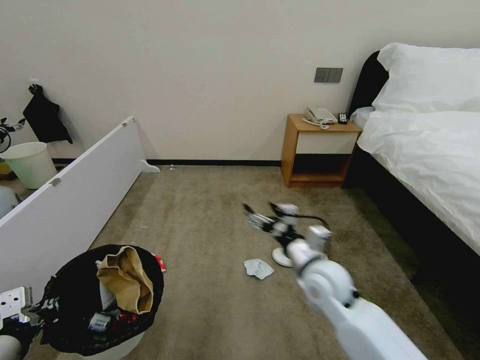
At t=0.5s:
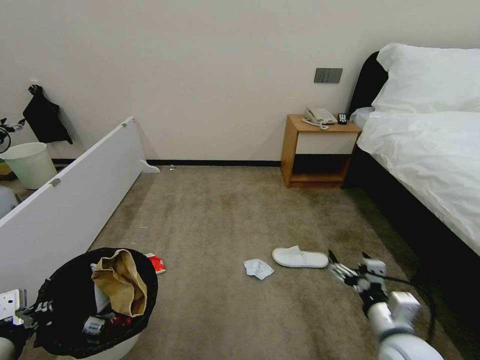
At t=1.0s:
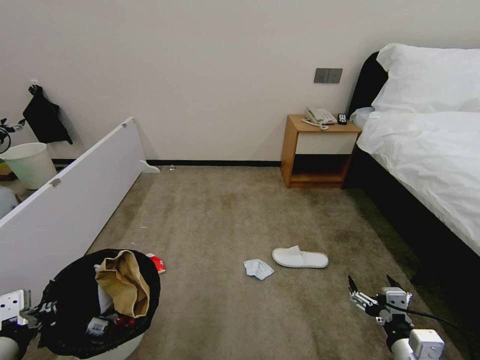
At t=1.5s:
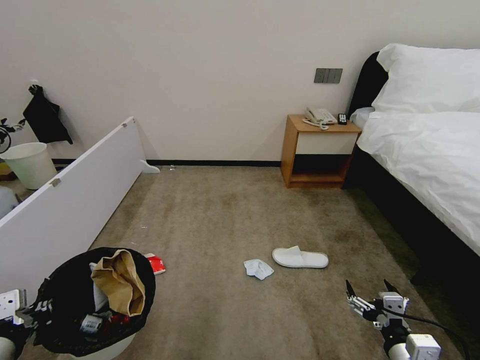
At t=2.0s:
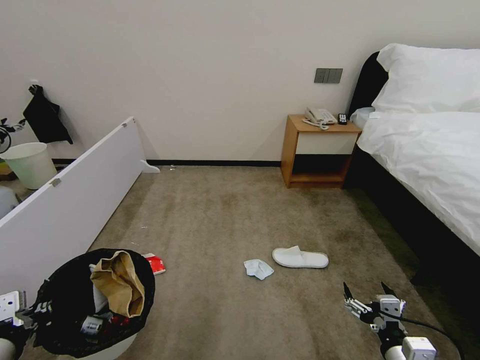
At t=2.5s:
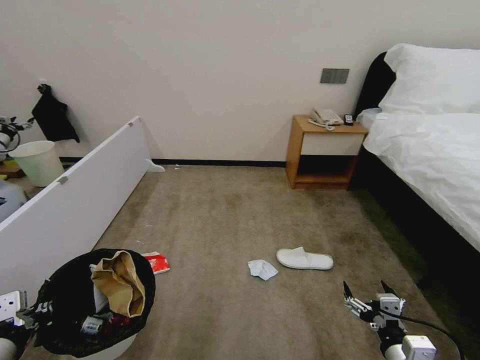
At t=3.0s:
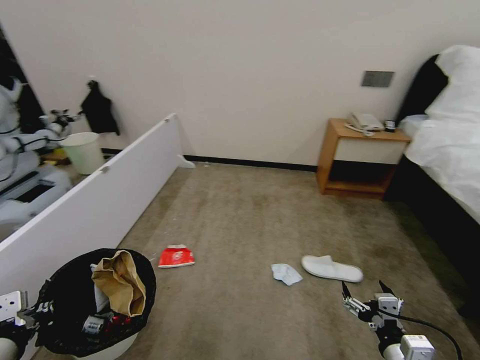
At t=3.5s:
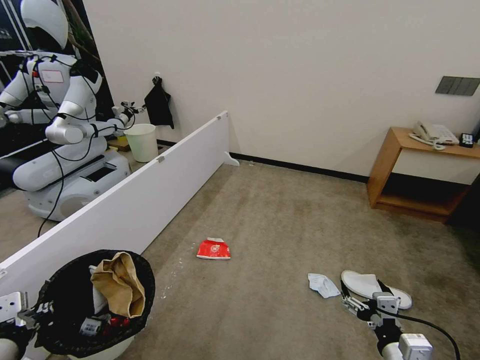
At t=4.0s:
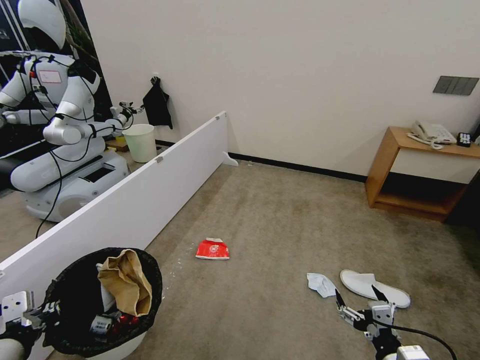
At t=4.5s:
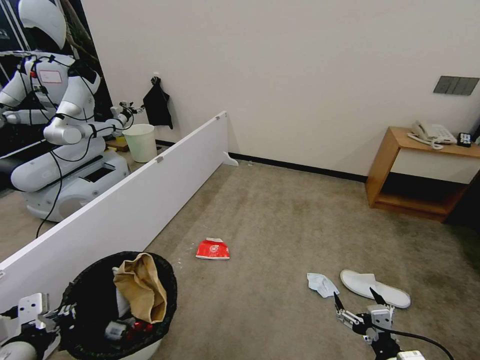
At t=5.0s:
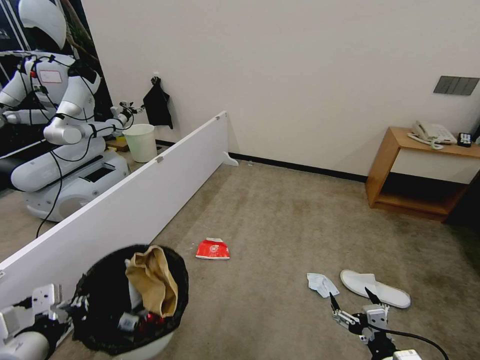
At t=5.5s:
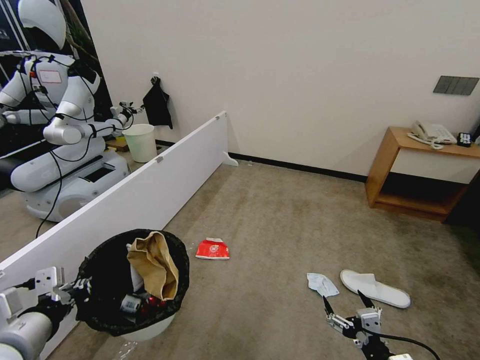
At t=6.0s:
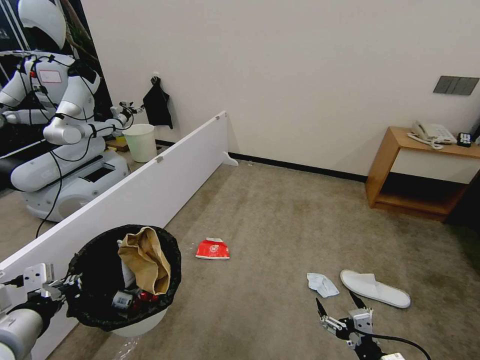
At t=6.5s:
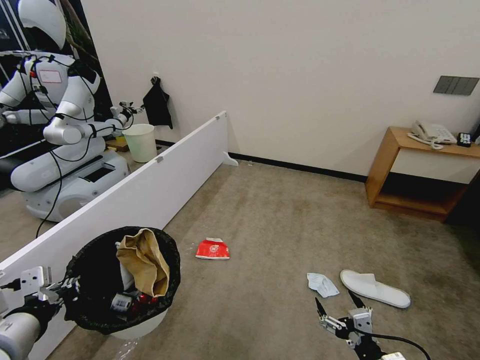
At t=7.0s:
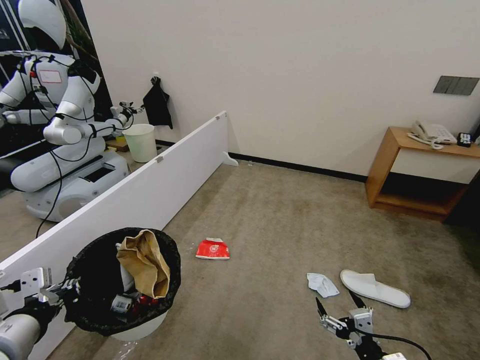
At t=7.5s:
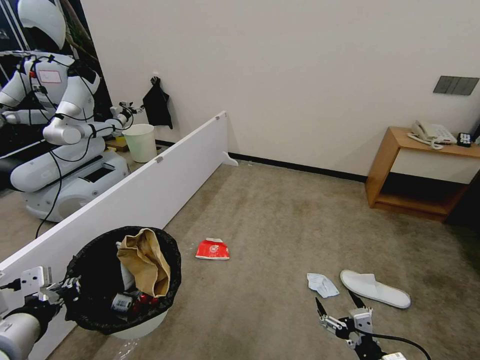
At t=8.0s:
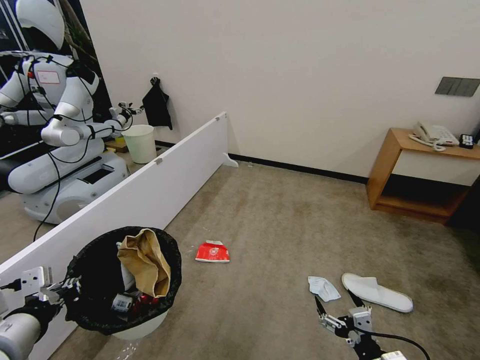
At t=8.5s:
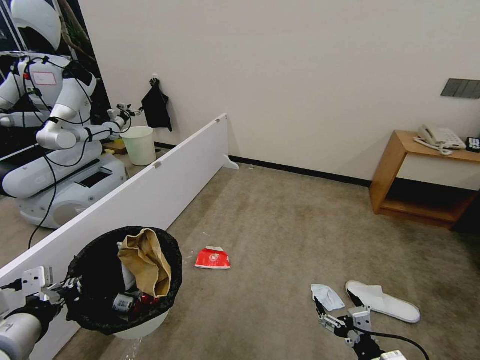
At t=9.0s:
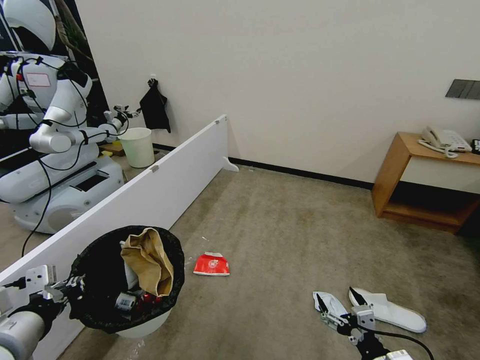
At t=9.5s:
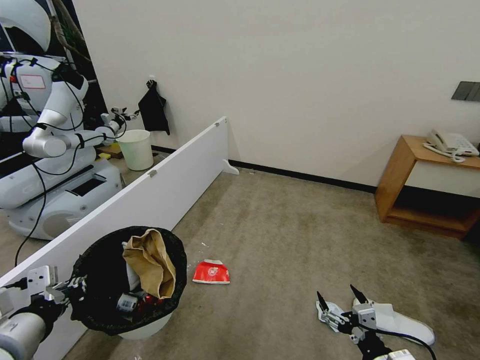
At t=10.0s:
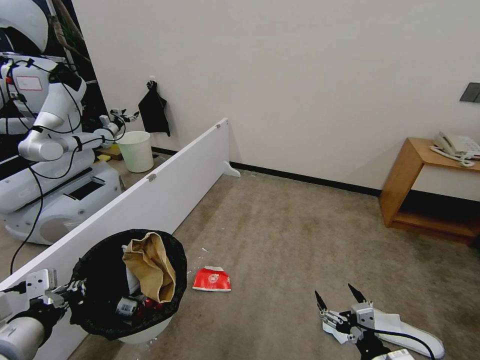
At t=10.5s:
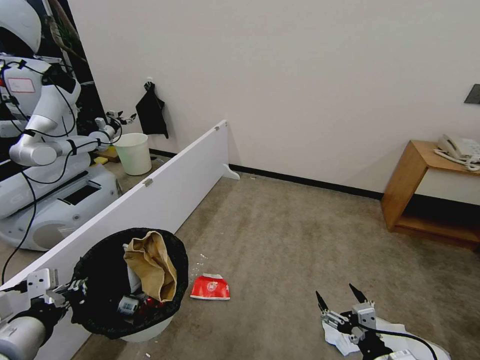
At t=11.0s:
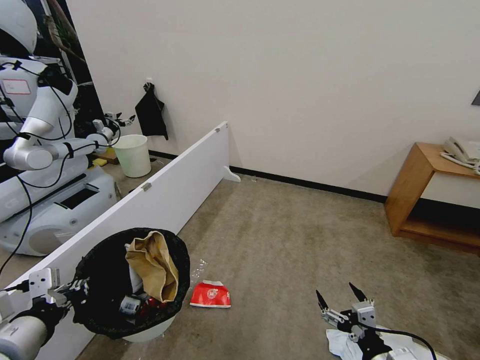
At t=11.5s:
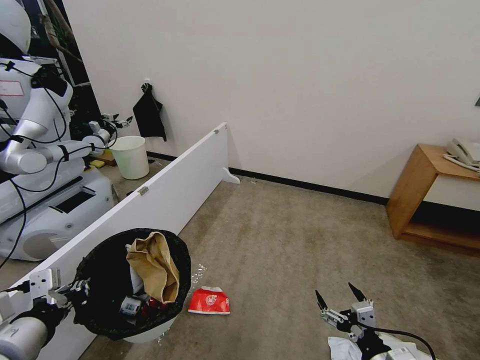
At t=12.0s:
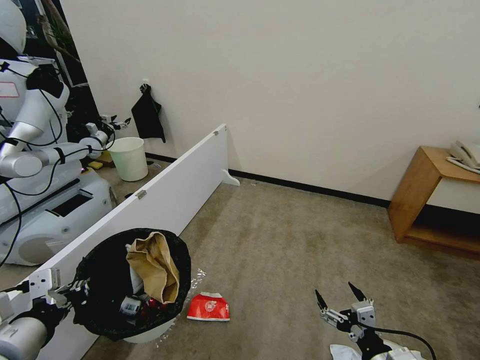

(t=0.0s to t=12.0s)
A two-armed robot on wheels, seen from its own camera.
Task of the whole recording: Pick up the trash bin, then pick up the garbage from the floor and place it into the trash bin.
t=0.0s - t=2.0s: The right gripper goes roughly 25 cm backward, to the right and downward.
t=4.0s - t=6.0s: There are only small adjustments of the grippers.
t=6.0s - t=8.0s: Neither gripper changes place.

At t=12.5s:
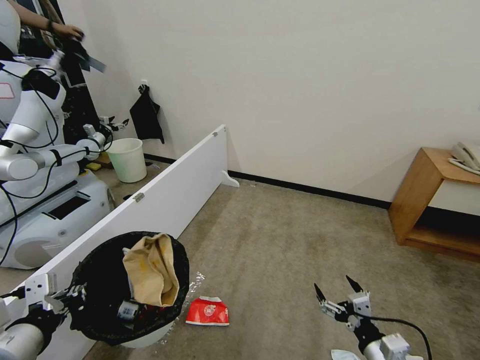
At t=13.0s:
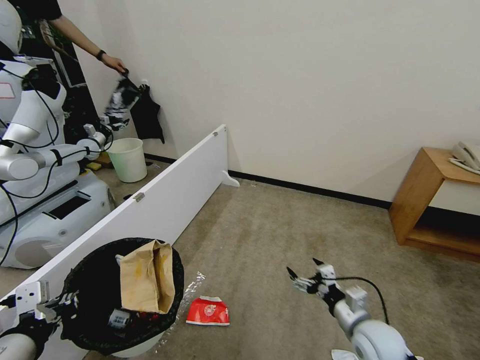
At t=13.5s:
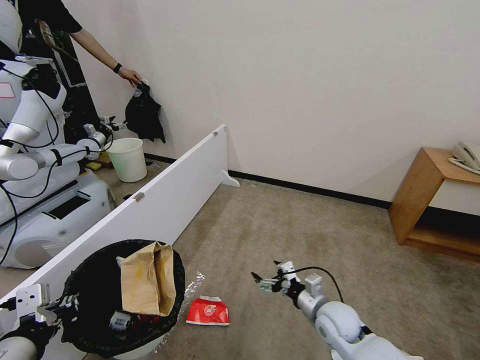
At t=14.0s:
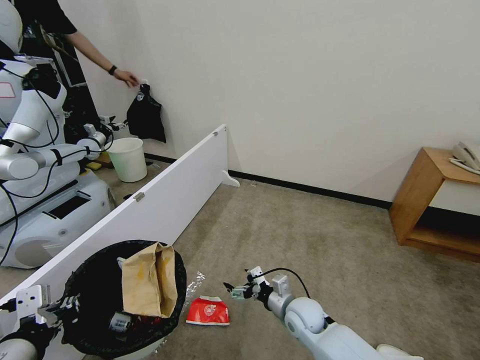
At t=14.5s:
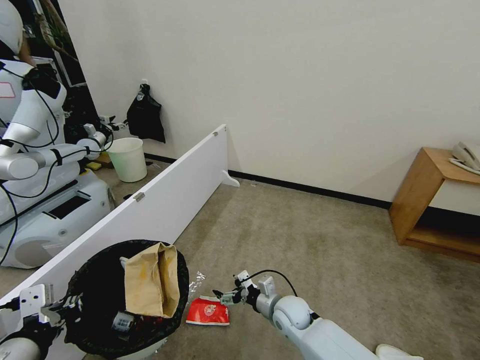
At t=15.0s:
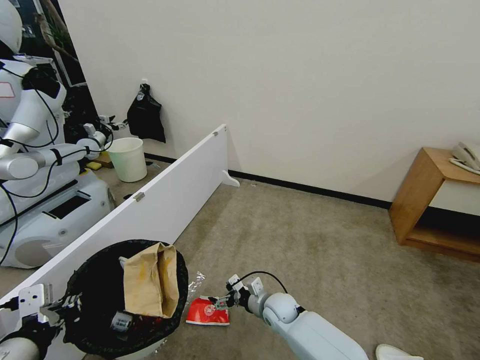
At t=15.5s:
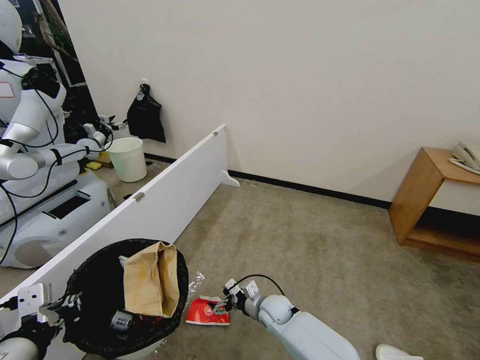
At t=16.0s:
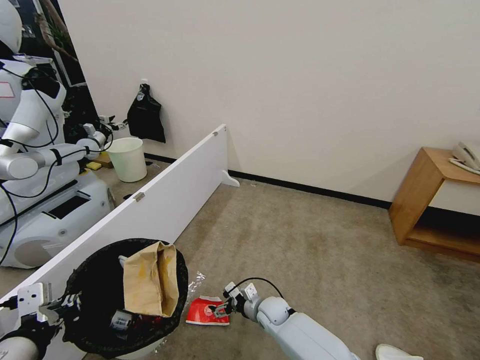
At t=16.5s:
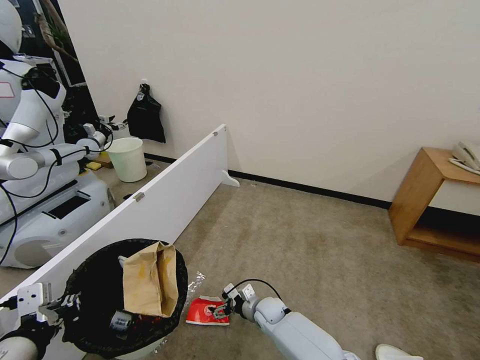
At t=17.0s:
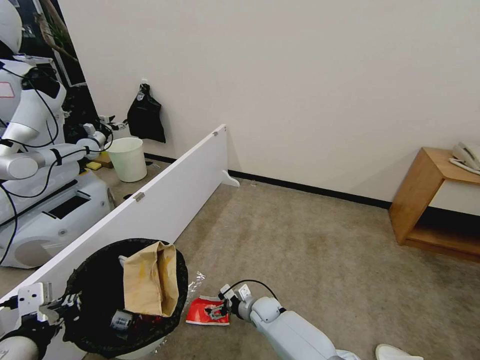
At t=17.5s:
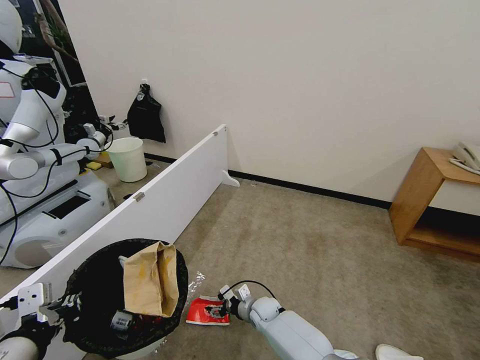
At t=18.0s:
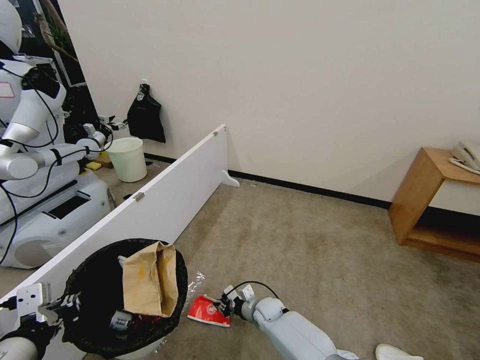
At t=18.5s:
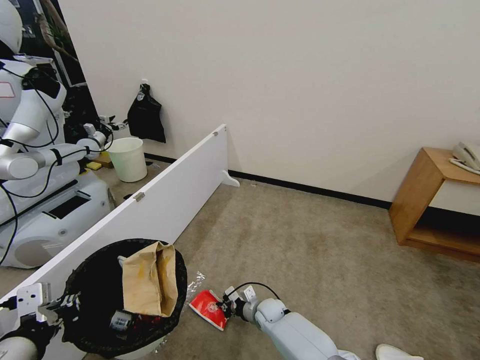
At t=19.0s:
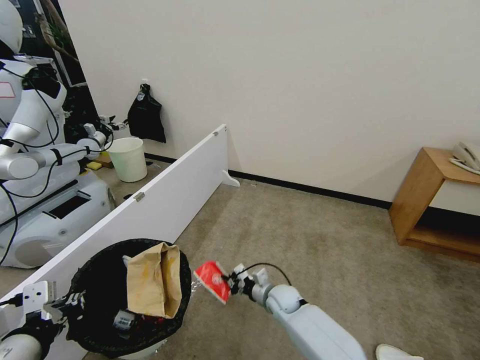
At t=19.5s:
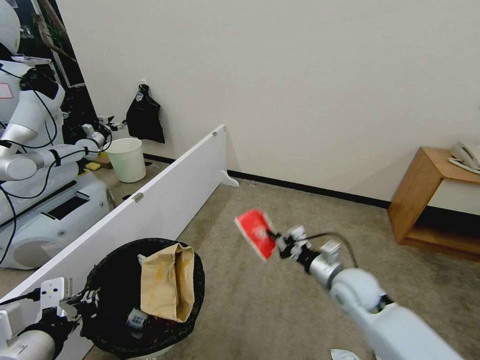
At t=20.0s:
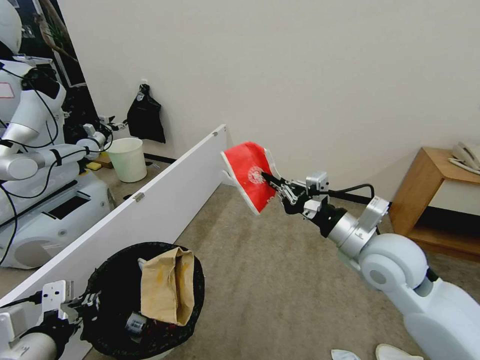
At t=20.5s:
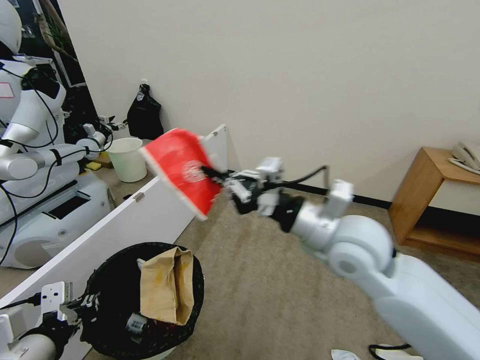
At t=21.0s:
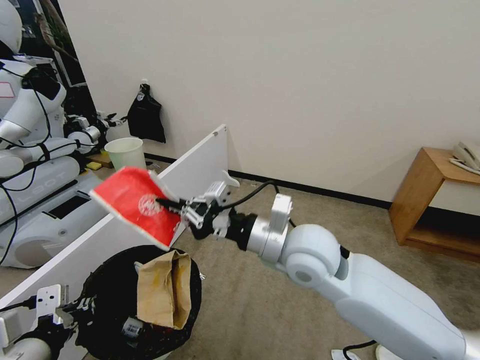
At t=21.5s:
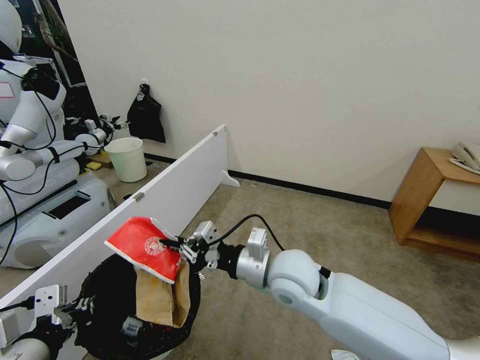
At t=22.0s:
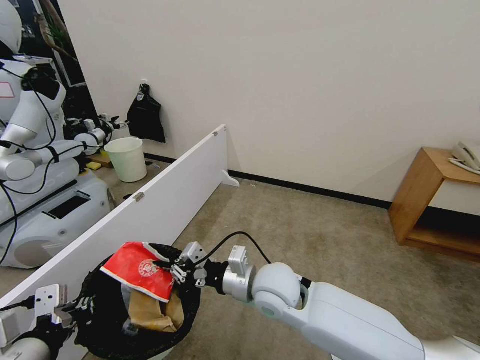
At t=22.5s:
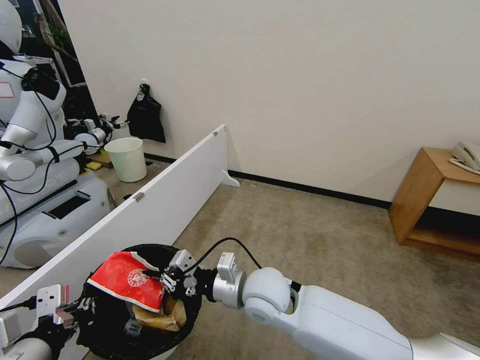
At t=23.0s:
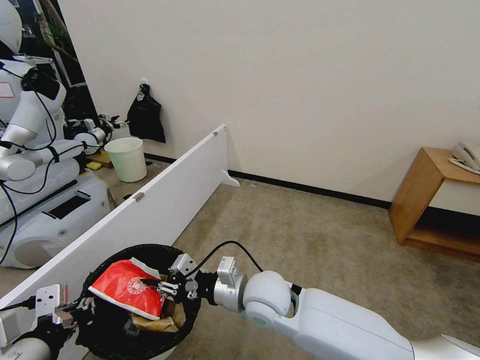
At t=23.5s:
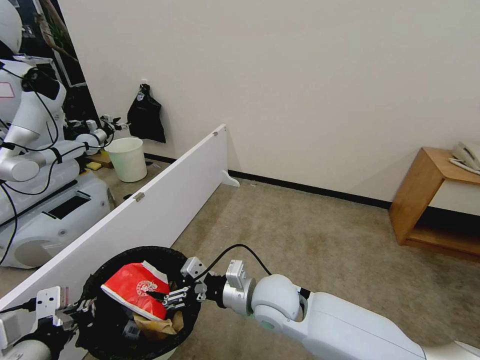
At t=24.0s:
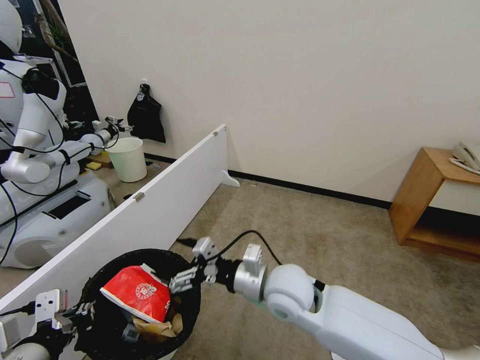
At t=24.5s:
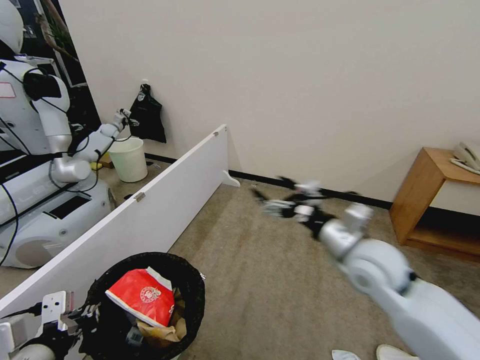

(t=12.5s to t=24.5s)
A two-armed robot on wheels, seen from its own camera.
Task of the whole recording: Pick up the trash bin, then pick up the garbage from the floor and place it into the trash bin.
t=12.5s - t=14.5s: The right gripper heads forward and to the left, covering roughly 25 cm.
t=14.5s - t=16.5s: The right gripper goes about 10 cm downward.
t=16.5s - t=18.5s: The right gripper closes.
t=18.5s - t=20.5s: The right gripper shifts about 40 cm upward.
t=20.5s - t=22.5s: The right gripper moves downward and to the left, some 20 cm.
t=22.5s - t=24.5s: The right gripper heads to the right and upward, covering about 20 cm, and opens up.

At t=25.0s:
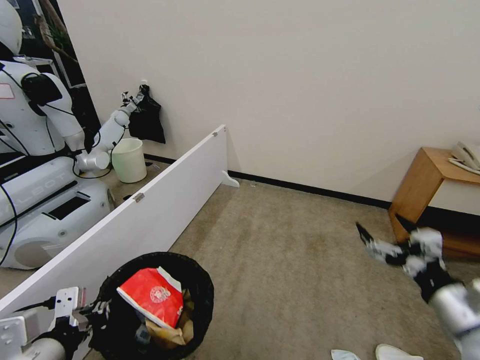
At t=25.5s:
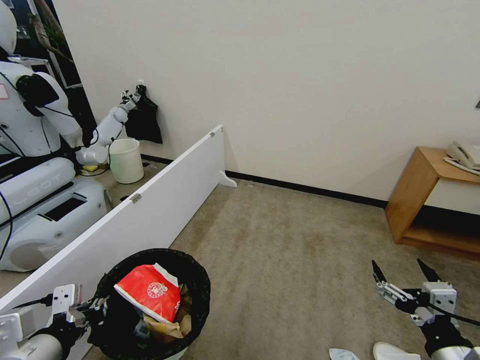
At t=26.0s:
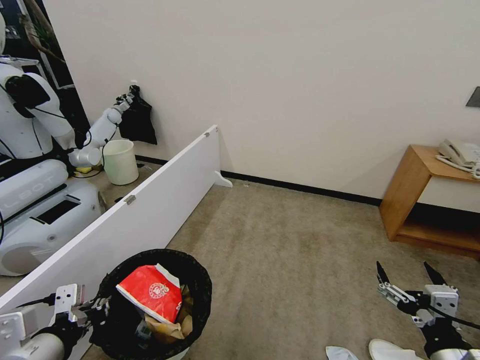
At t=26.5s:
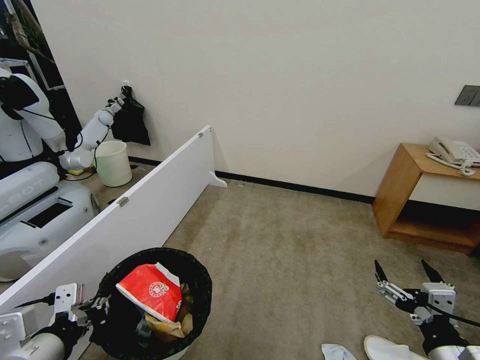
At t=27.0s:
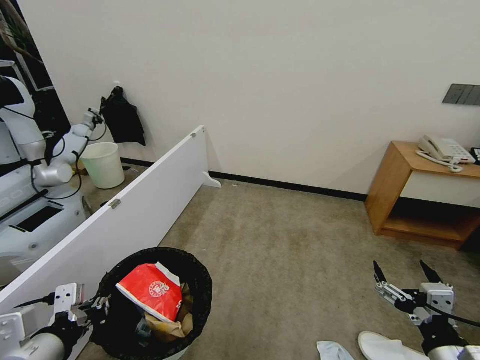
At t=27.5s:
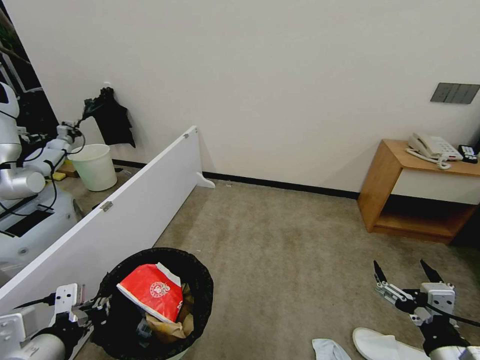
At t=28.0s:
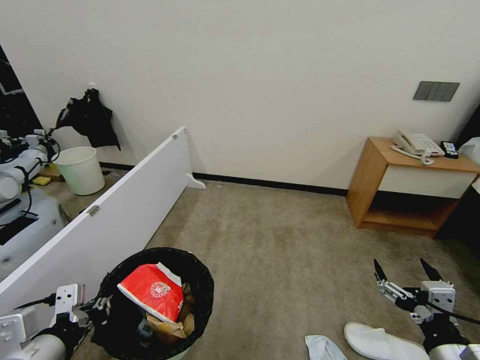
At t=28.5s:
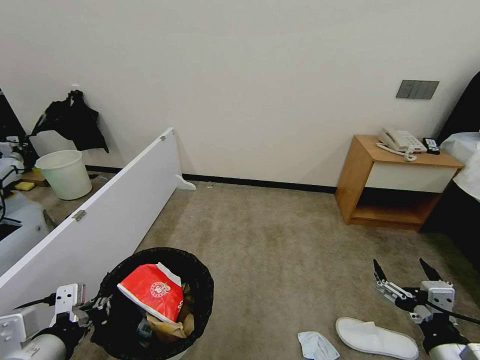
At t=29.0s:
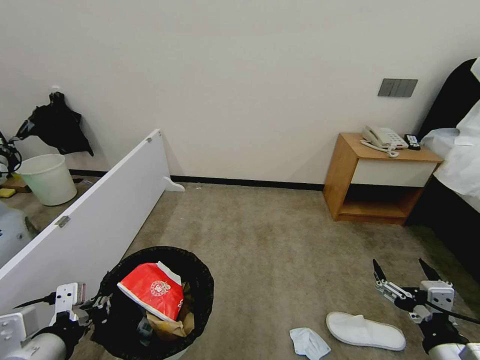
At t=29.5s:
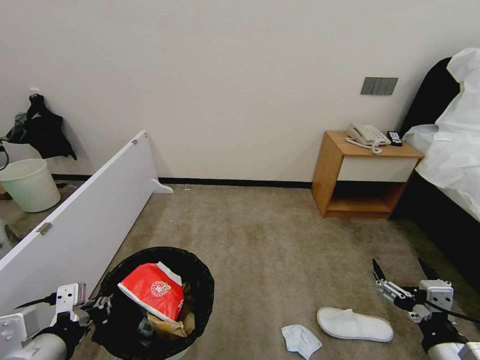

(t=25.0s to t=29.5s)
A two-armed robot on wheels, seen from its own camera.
Task of the whole recording: Pick up the trash bin, then pick up the garbage from the floor and place it into the trash bin.
t=25.0s - t=27.0s: The right gripper shifts some 10 cm backward and downward.
